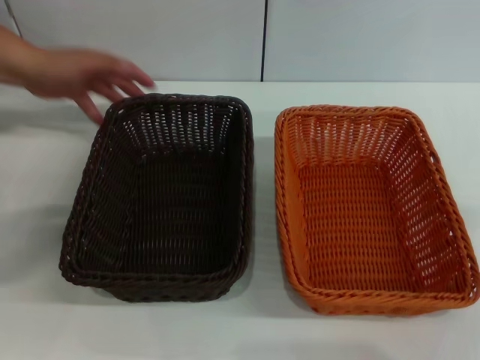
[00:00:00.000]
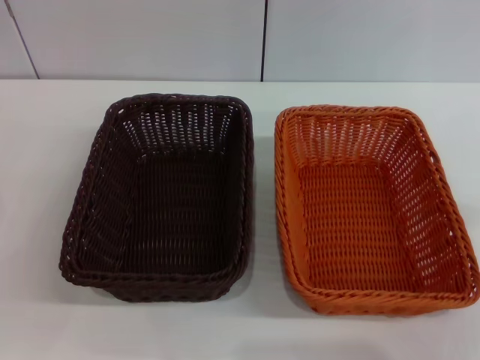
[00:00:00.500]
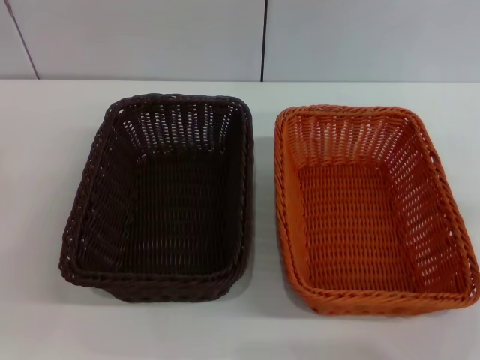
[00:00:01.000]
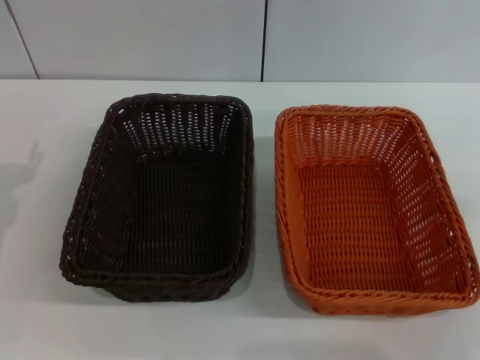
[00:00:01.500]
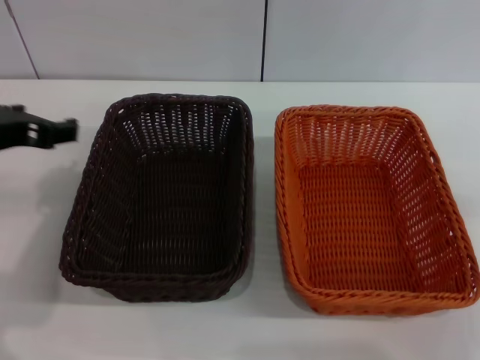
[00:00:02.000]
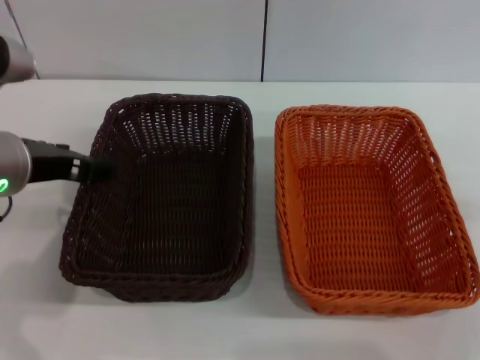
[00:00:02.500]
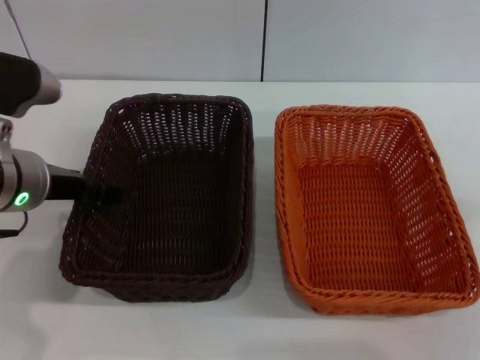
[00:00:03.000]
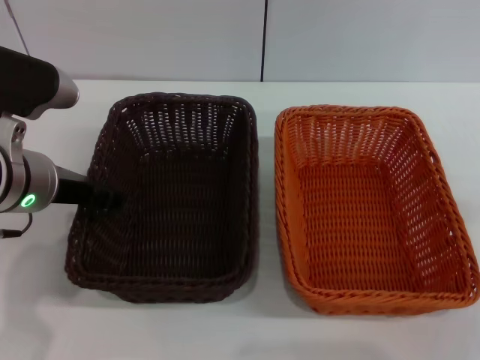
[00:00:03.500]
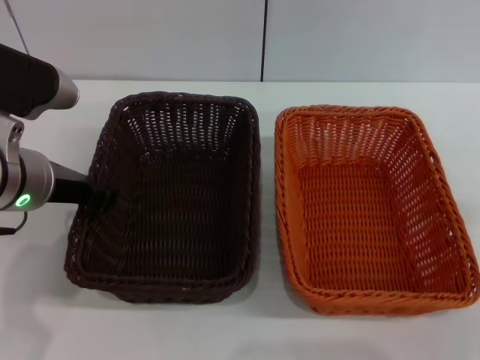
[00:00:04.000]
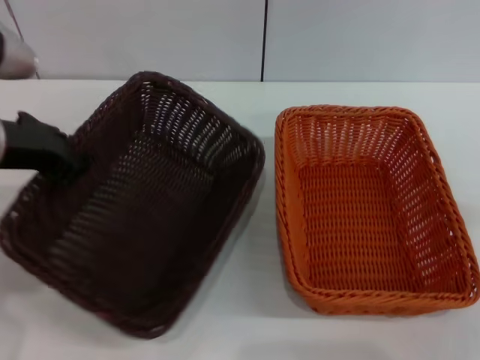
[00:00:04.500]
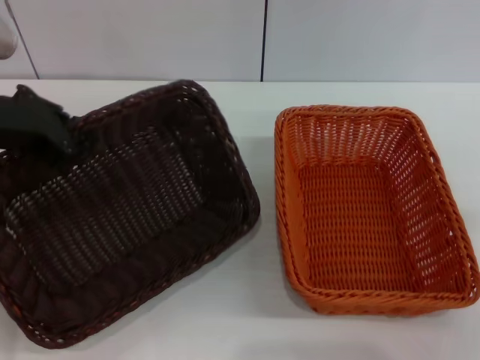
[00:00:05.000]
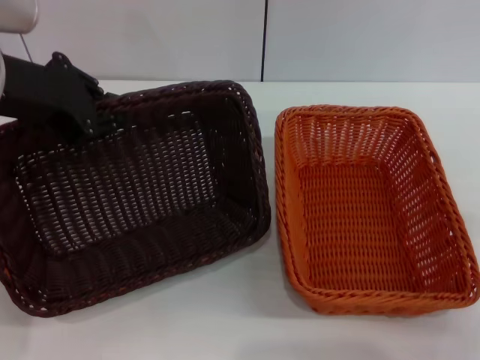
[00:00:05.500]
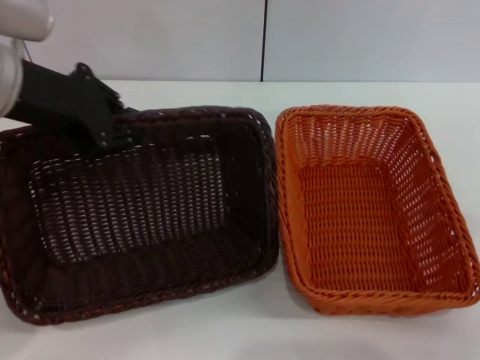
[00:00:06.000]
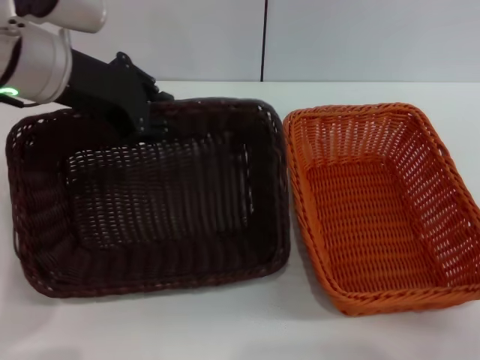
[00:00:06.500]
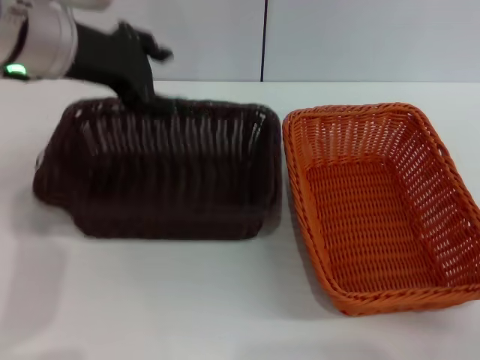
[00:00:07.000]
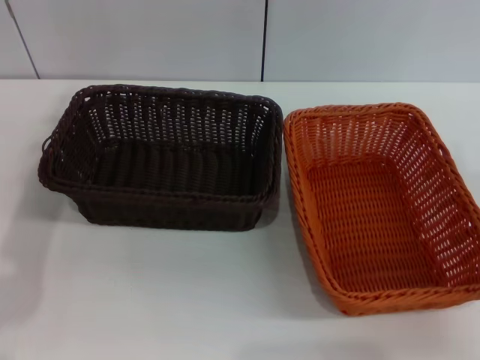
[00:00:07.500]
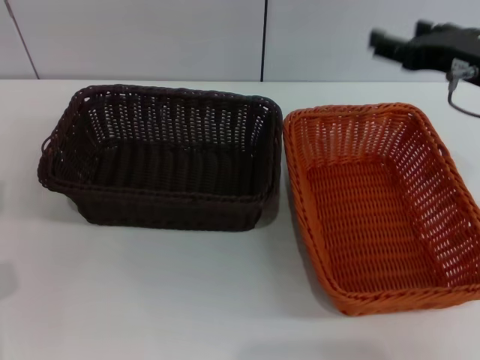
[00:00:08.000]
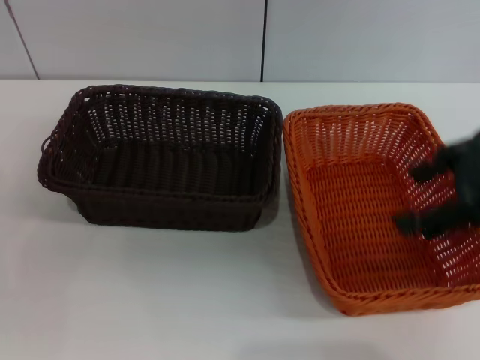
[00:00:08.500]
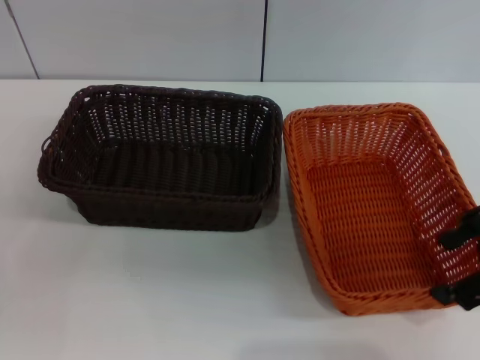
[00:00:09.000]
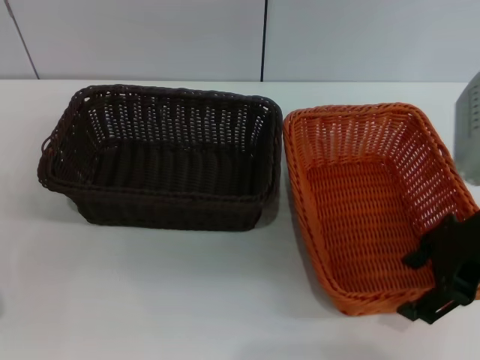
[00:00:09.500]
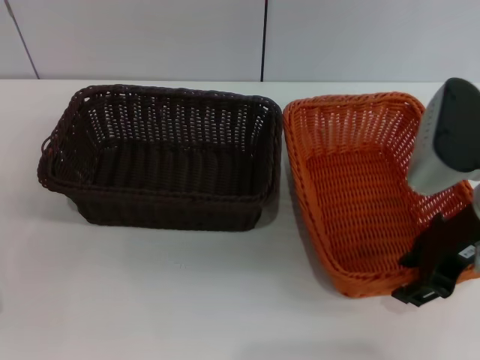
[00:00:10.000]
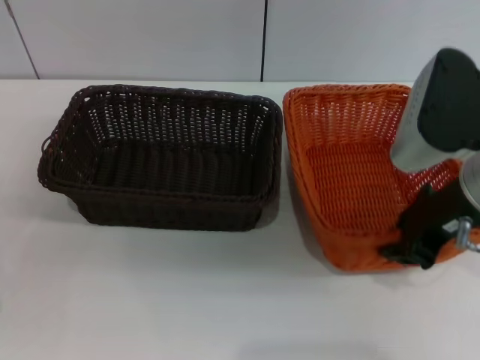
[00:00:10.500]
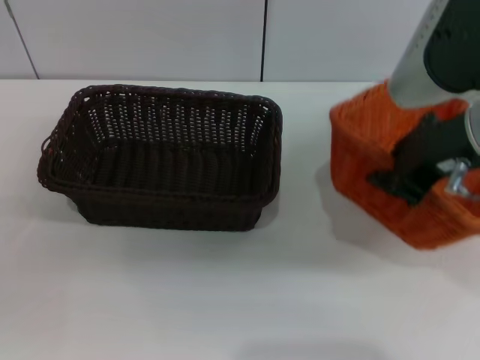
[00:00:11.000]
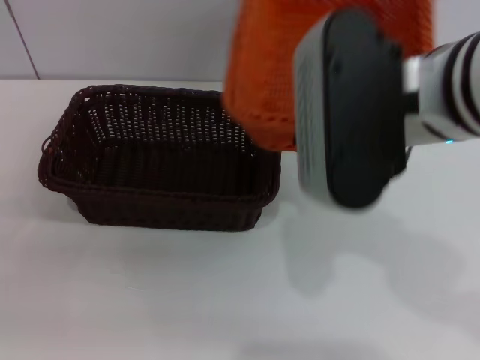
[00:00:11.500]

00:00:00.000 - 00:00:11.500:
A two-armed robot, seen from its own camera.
Step, 00:00:00.000 - 00:00:04.500: Pick up the dark basket with the left gripper.
Step, 00:00:05.000 - 00:00:07.000: Place the dark basket in the center of view with the left gripper.
Step, 00:00:07.500 - 00:00:10.500: Pick up the light basket with the right gripper.
00:00:00.000 - 00:00:02.000: The left gripper shifts roughly 20 cm upward and to the right.
00:00:02.000 - 00:00:04.000: The left gripper shifts by roughly 5 cm, and closes.
00:00:04.000 - 00:00:06.000: The left gripper travels upward by roughly 10 cm.
00:00:06.000 - 00:00:07.500: The right gripper ends up some 5 cm from where it was; the left gripper ends up roughly 5 cm from where it was, and opens.
00:00:07.500 - 00:00:09.500: The right gripper heads upward and to the left, covering approximately 15 cm. The left gripper shifts approximately 25 cm downward and backward.
00:00:09.500 - 00:00:11.500: The right gripper goes roughly 15 cm to the left and upward, and closes.

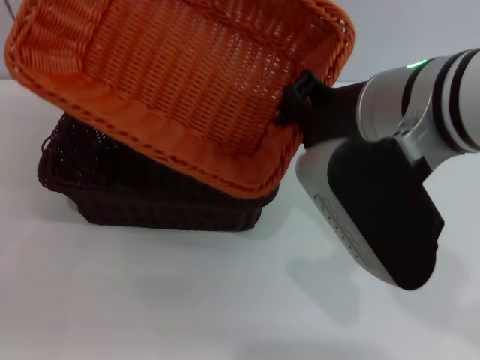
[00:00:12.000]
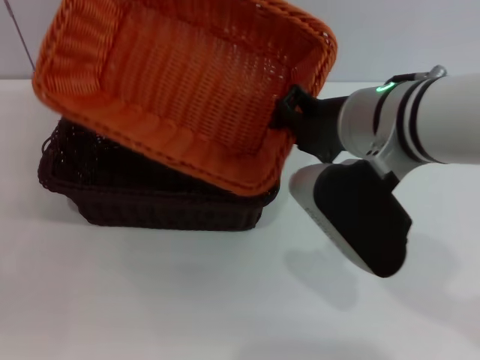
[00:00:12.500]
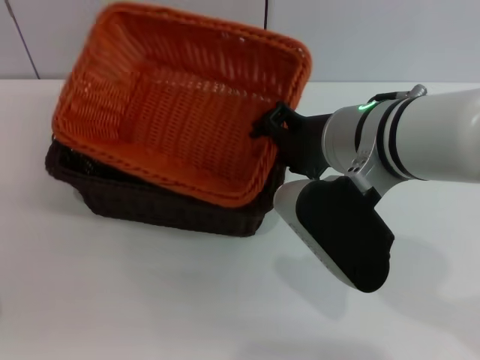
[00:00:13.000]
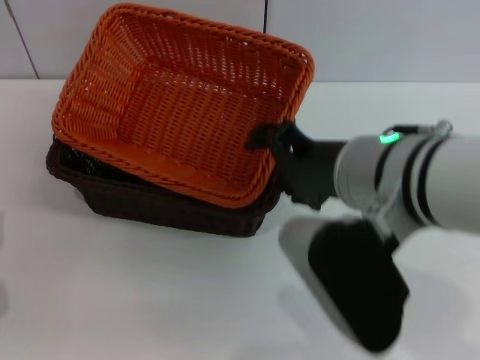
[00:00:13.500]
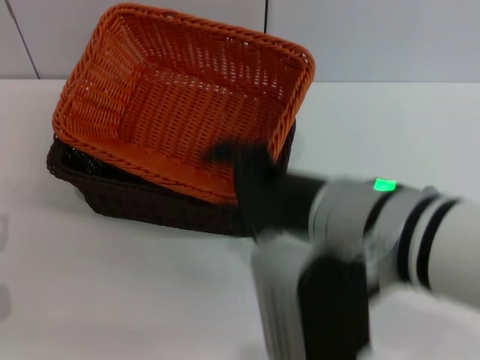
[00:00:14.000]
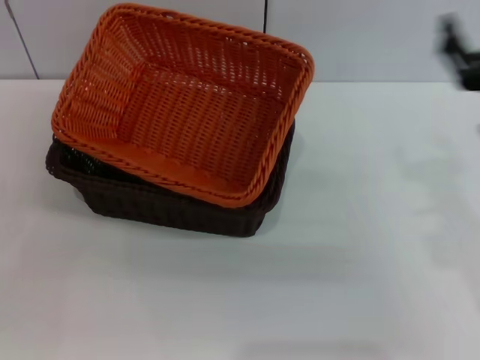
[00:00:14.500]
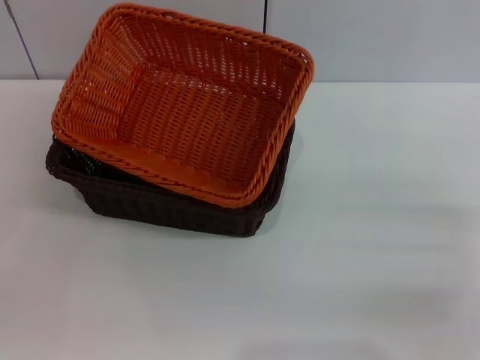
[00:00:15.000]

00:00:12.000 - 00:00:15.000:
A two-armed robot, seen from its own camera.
Step, 00:00:12.000 - 00:00:13.500: Place the light basket on the dark basket with the right gripper.
00:00:12.000 - 00:00:13.500: The right gripper changes place by roughly 5 cm, and opens its fingers.
00:00:13.500 - 00:00:15.000: The right gripper travels to the right and downward by roughly 25 cm.

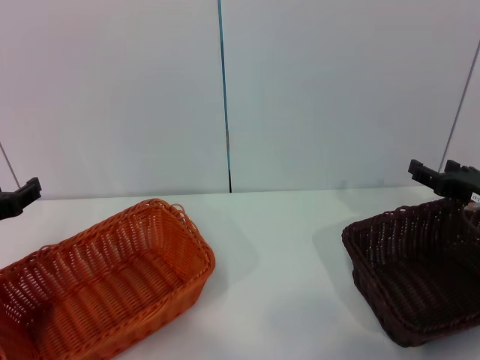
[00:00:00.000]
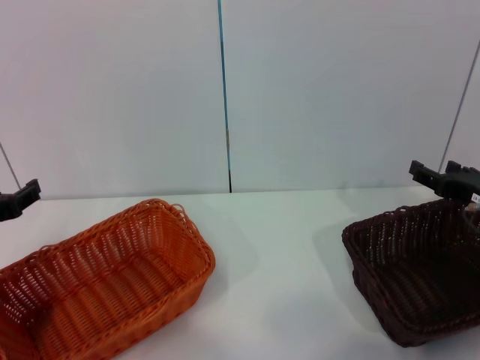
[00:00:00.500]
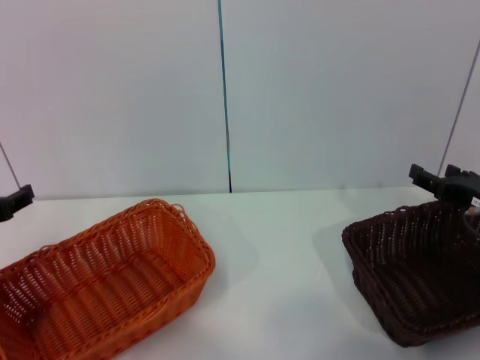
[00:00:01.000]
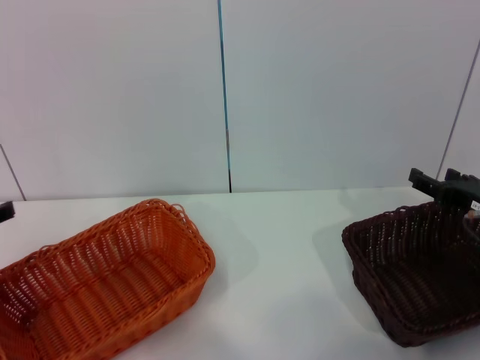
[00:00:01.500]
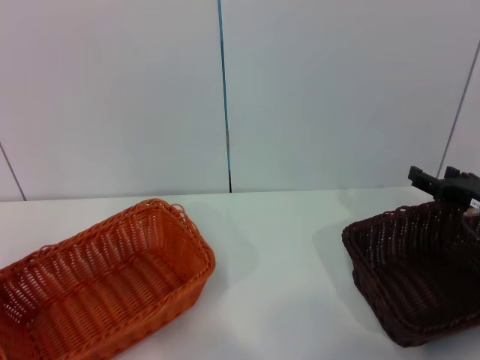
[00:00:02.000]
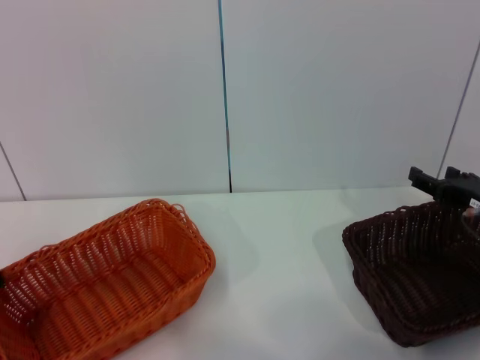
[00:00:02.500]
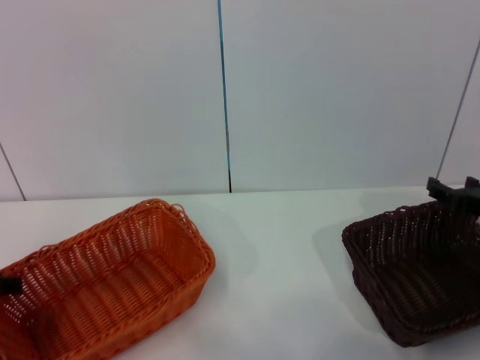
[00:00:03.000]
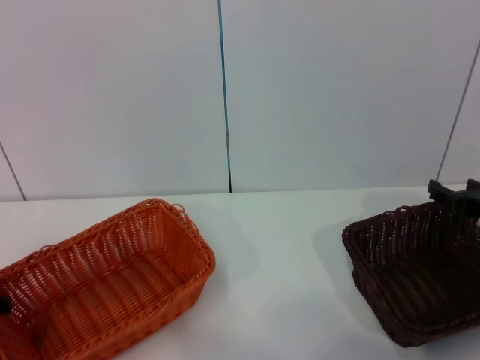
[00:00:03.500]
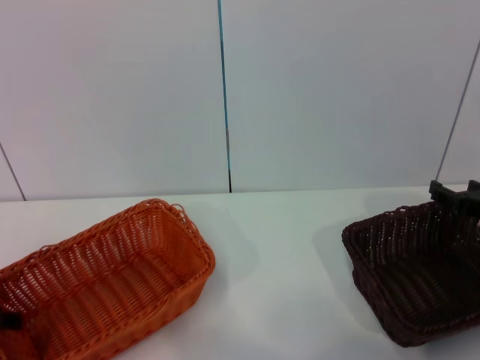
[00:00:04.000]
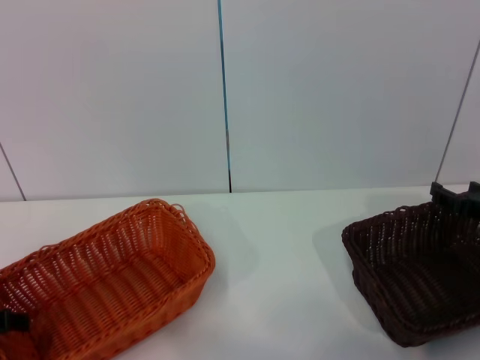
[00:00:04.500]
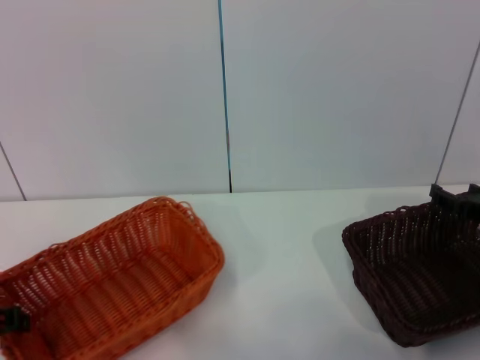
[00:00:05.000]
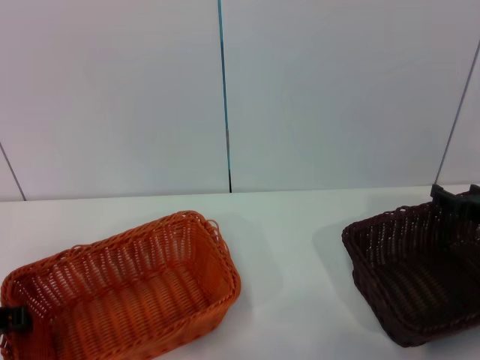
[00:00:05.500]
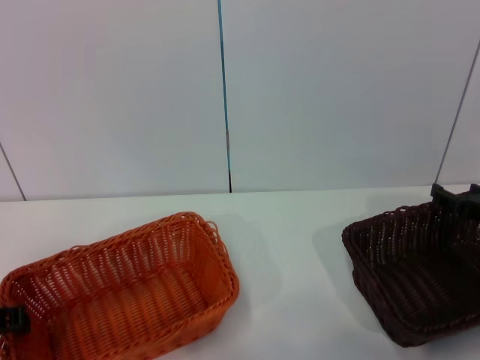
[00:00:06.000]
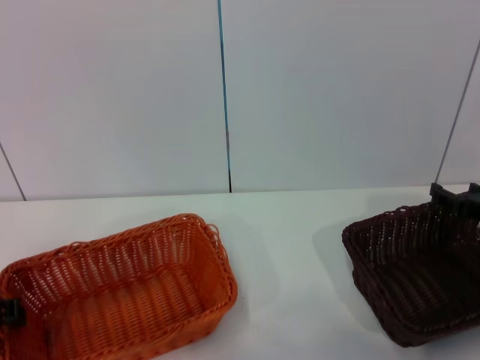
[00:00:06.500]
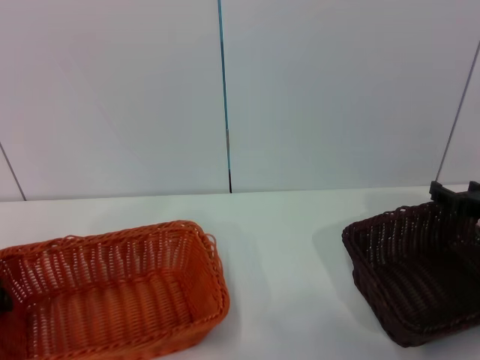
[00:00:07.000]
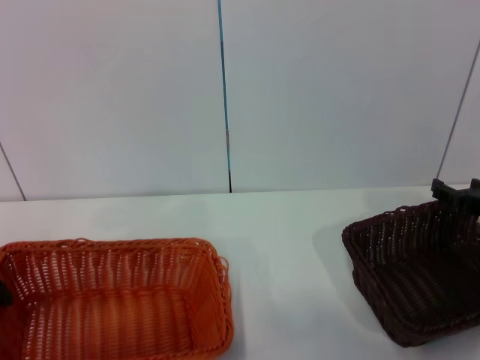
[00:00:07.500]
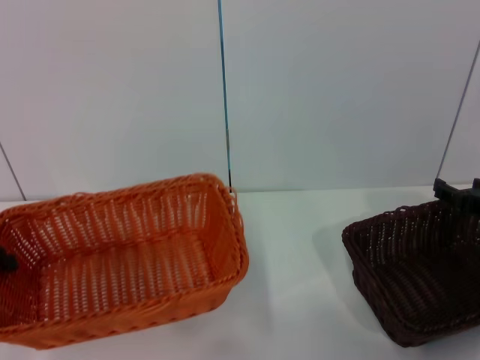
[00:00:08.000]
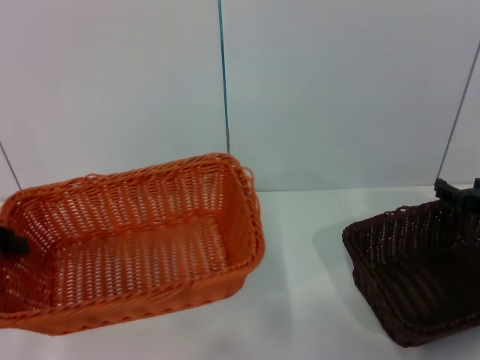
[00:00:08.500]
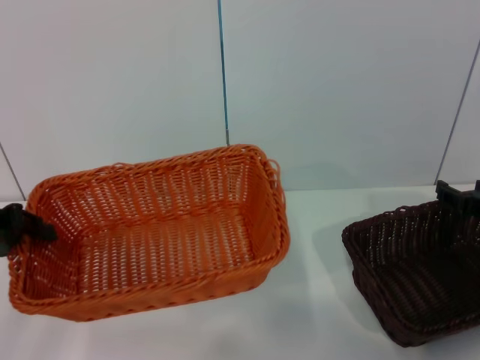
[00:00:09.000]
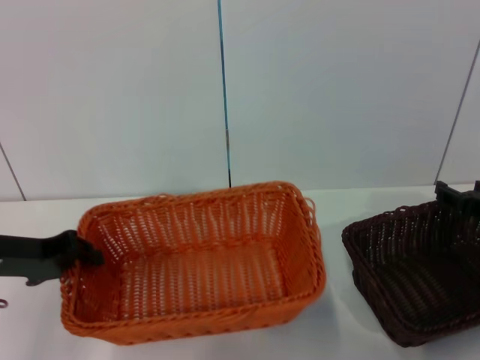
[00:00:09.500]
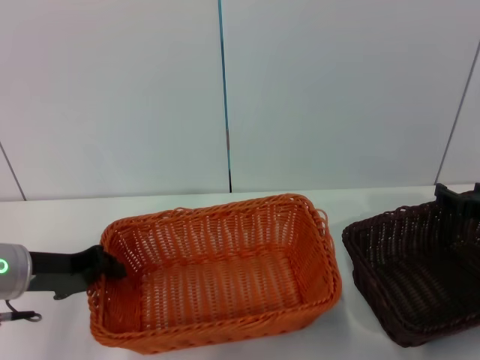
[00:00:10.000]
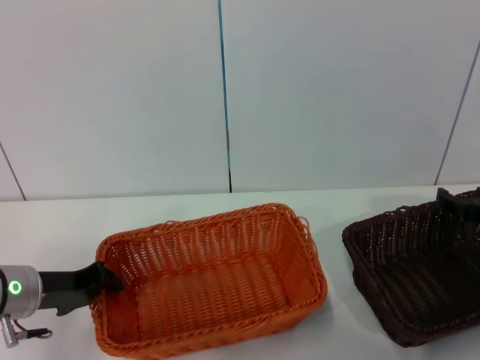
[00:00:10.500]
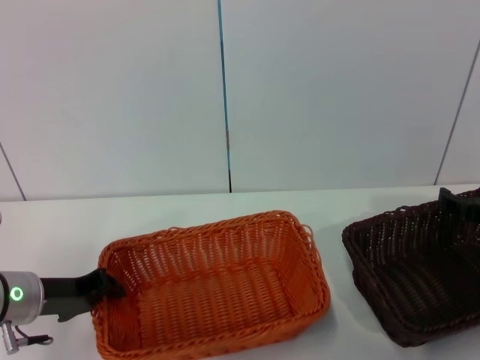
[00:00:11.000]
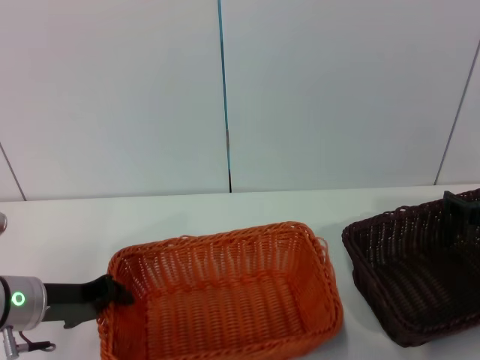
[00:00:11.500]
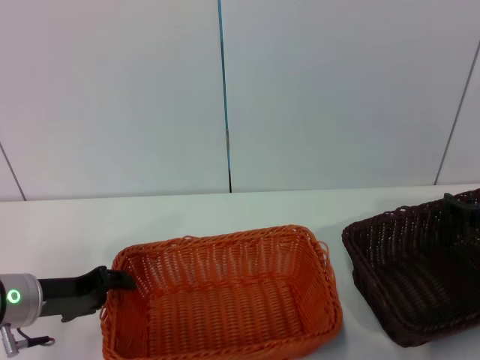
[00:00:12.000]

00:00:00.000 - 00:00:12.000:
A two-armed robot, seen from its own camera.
Step, 00:00:00.000 - 00:00:08.000: Pick up the light basket with the left gripper.
Step, 00:00:08.500 - 00:00:11.500: Place the light basket in the center of view with the left gripper.
00:00:02.000 - 00:00:04.000: The grippers move only a little.
00:00:04.000 - 00:00:06.000: The left gripper closes.
00:00:06.000 - 00:00:08.000: The left gripper is displaced upward by about 10 cm.
00:00:08.000 - 00:00:10.000: The left gripper heads to the right and downward, covering about 10 cm.
00:00:10.000 - 00:00:12.000: The grippers move only a little.
